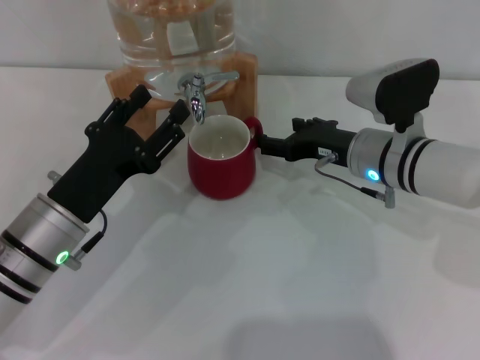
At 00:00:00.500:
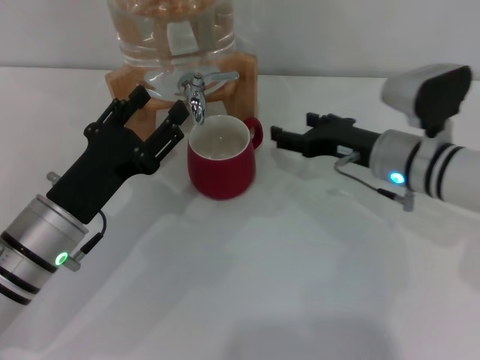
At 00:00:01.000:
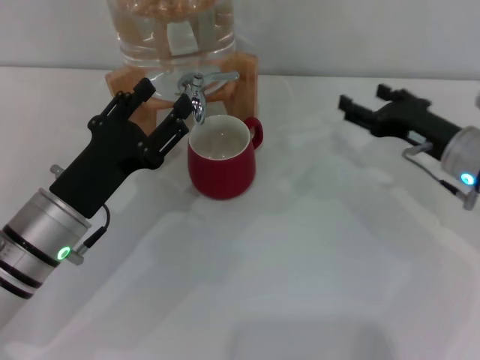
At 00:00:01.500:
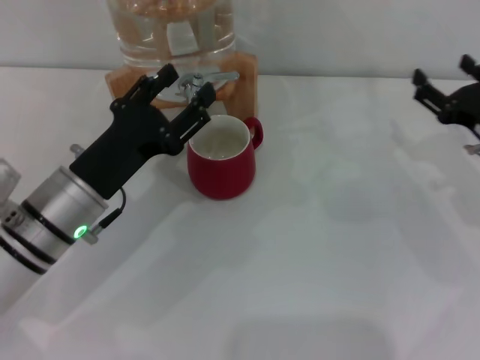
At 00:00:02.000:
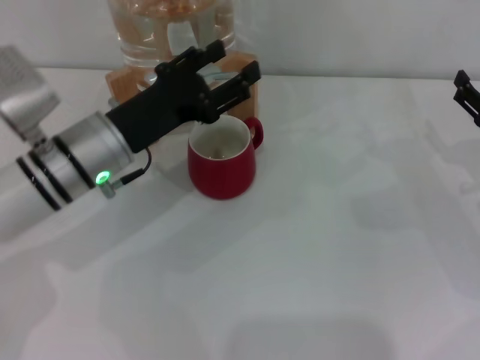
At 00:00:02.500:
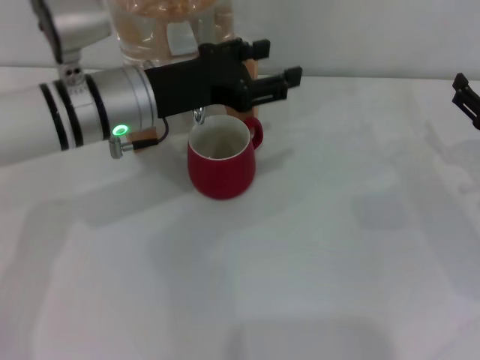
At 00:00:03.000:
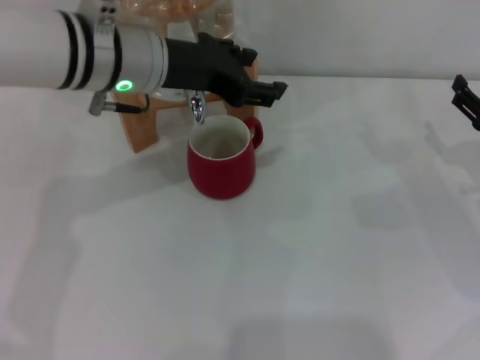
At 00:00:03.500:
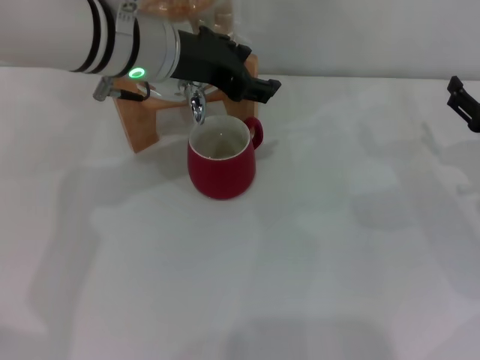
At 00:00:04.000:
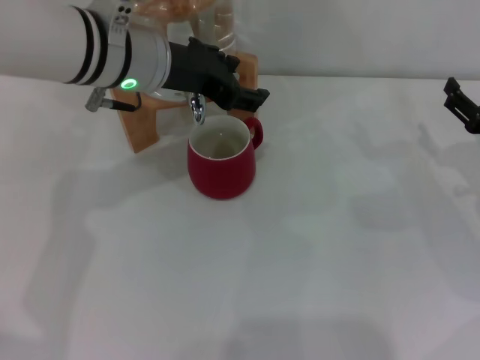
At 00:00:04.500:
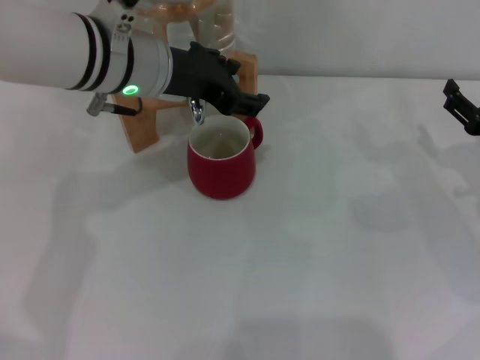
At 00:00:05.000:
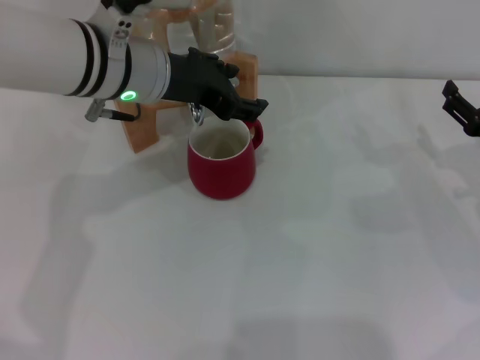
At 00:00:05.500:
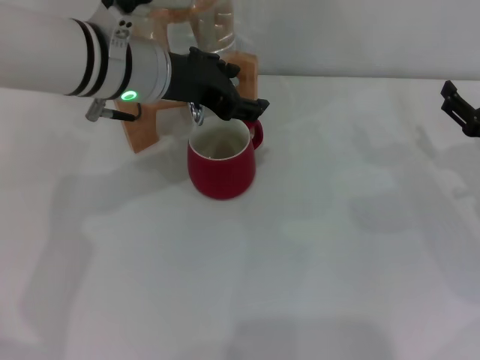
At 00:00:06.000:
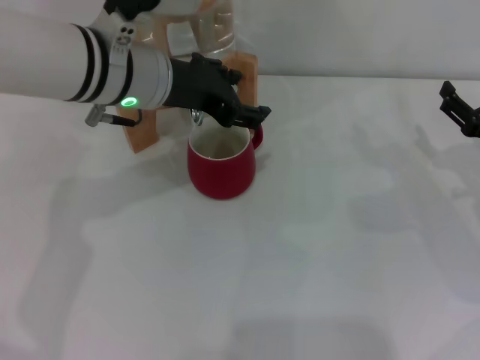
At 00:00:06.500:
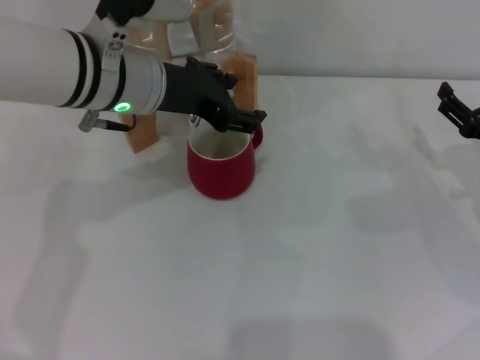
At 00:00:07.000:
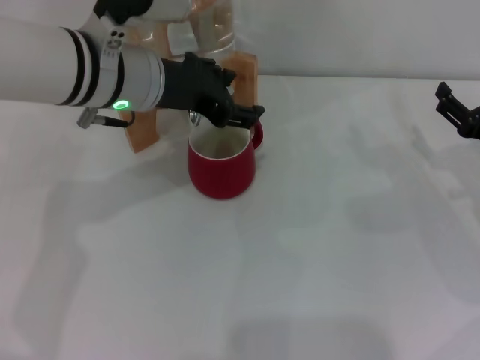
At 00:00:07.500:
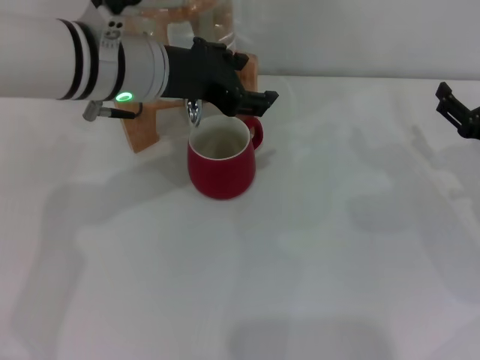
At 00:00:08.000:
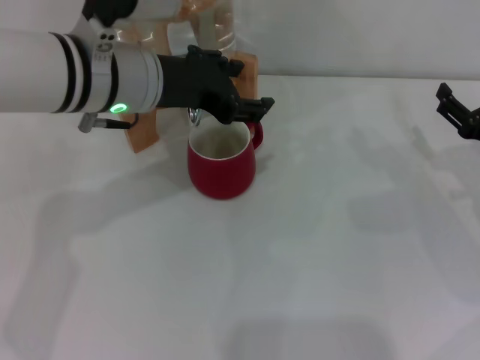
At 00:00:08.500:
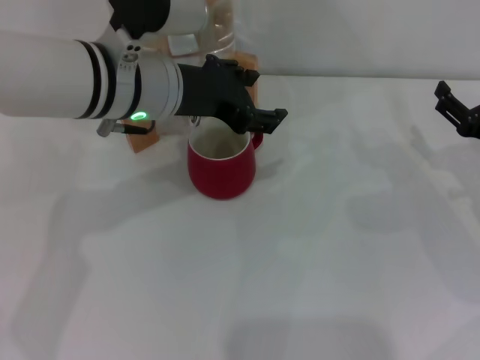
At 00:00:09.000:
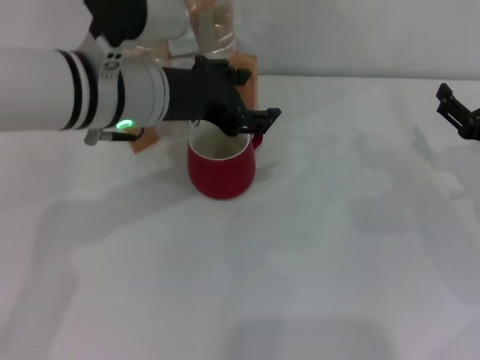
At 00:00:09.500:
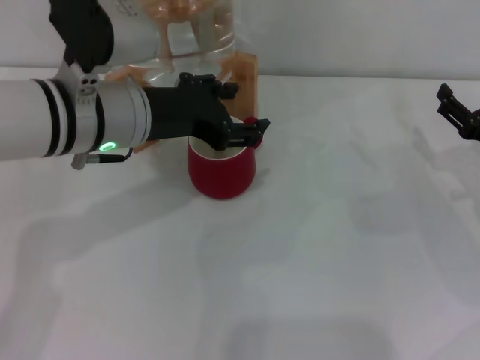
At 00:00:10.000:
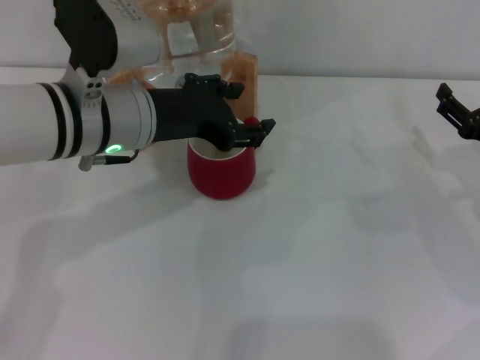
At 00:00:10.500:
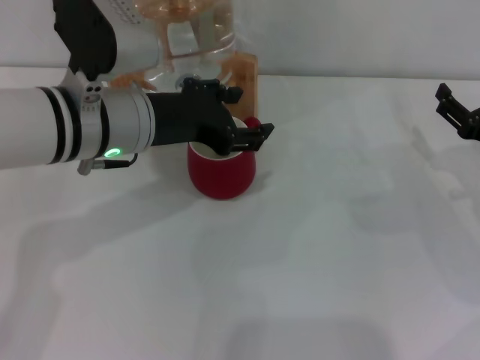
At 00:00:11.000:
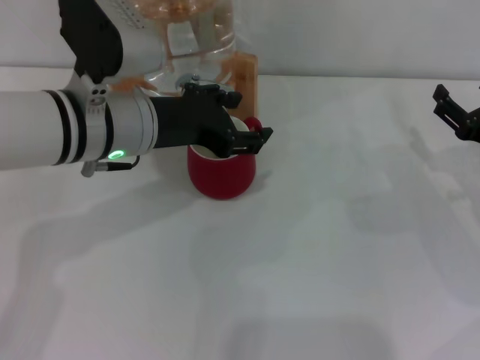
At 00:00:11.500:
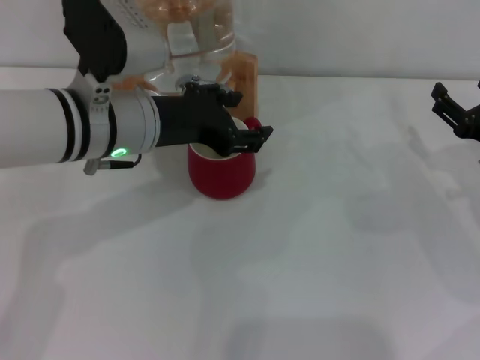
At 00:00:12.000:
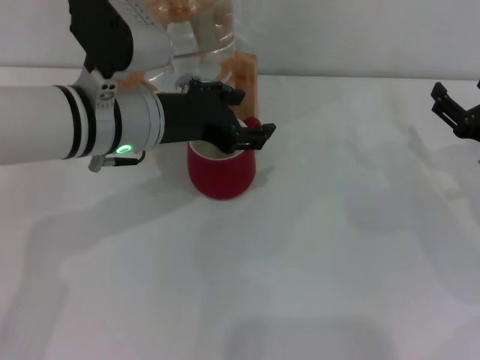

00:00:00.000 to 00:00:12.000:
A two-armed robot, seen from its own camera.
Task of the whole recording: the right gripper pick up the red cup and place it horizontally under the faucet, the left gripper turn on the faucet to fill the cup, and then turn off the faucet.
Step, 00:00:01.000 to 00:00:10.500: Open the dispenser valve and fill the cup with water with the left gripper.
00:00:00.000 to 00:00:02.000: The left gripper heads forward and upward, covering about 10 cm, while the right gripper travels to the right by about 15 cm.
00:00:02.000 to 00:00:04.000: The left gripper goes some 10 cm upward and forward.
00:00:04.000 to 00:00:06.000: Both grippers stay put.
00:00:06.000 to 00:00:12.000: There are only small adjustments of the grippers.

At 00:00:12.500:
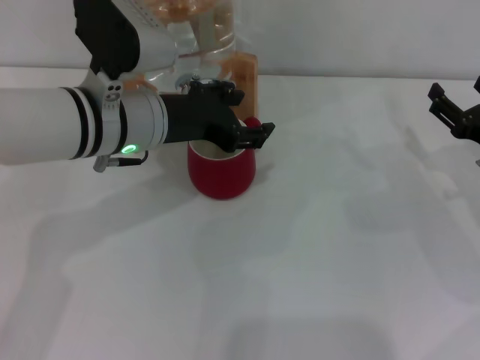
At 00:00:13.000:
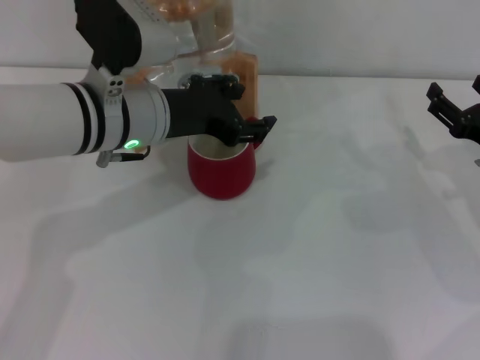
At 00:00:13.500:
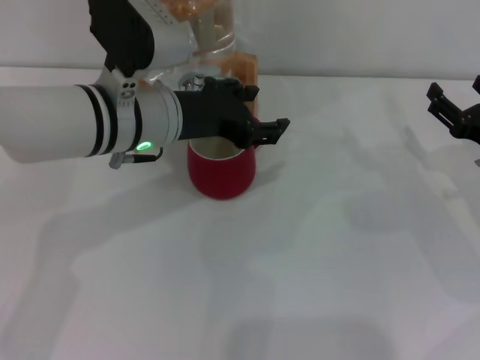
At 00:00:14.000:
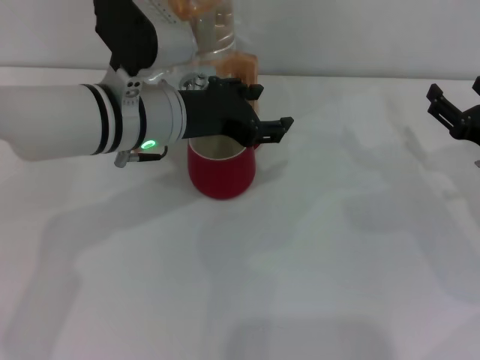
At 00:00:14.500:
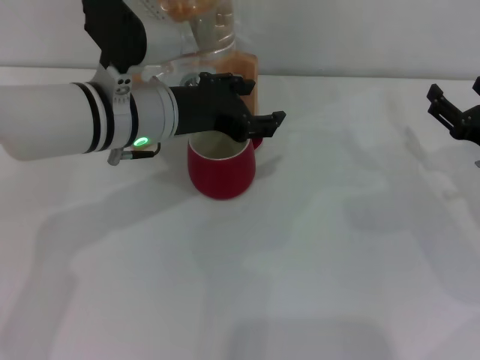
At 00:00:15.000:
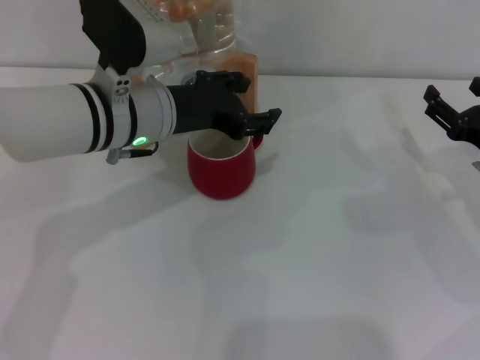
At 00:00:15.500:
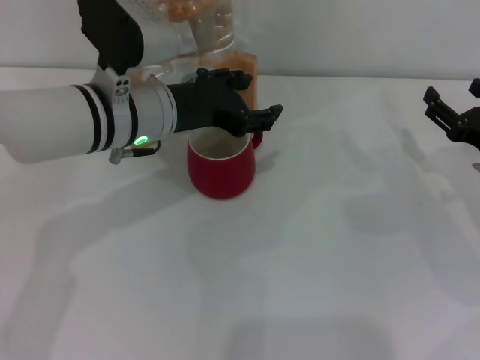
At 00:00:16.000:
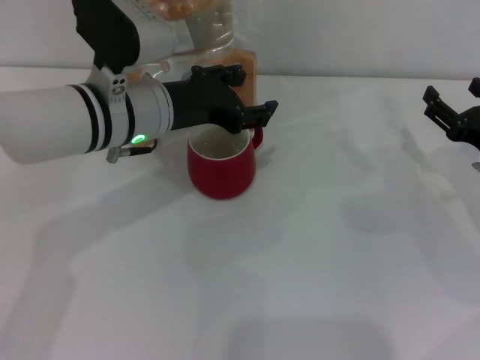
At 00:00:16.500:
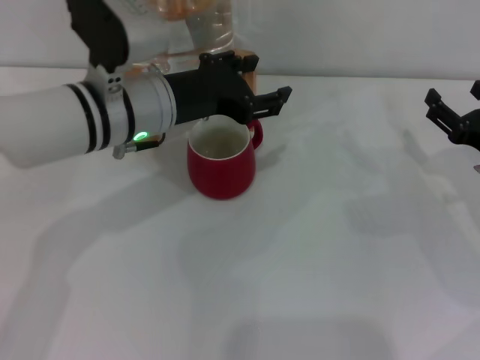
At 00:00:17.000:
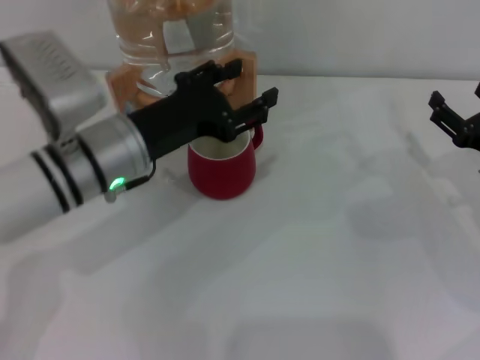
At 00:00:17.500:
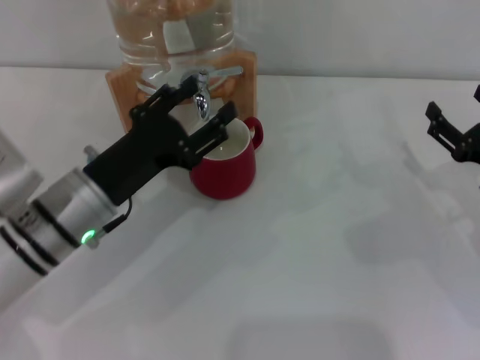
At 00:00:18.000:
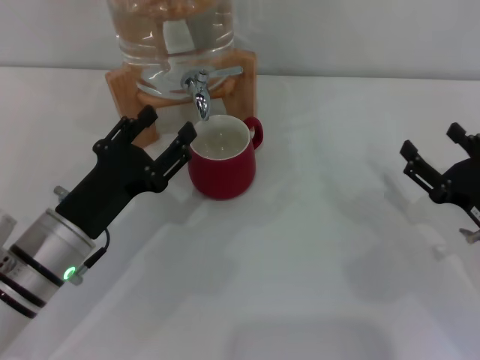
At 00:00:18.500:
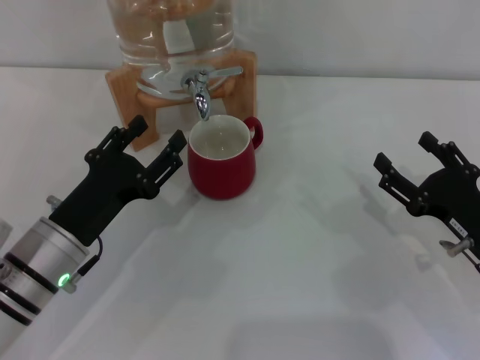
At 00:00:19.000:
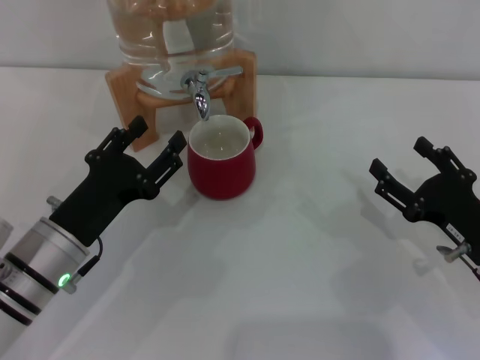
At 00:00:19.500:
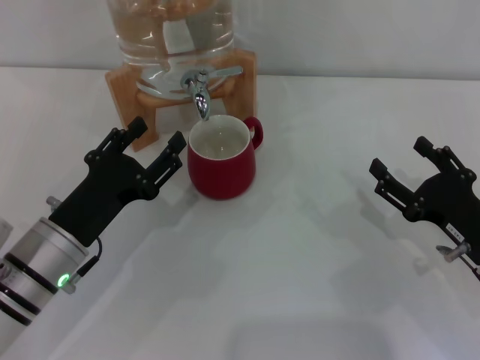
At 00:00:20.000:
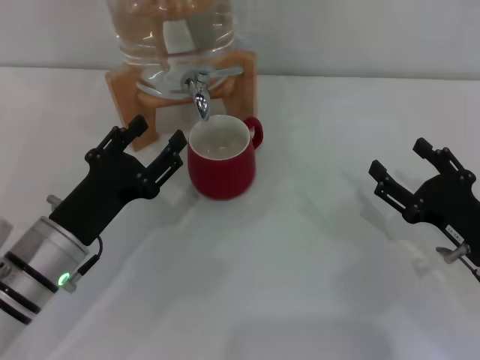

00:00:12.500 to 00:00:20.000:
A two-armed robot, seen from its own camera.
Task of the whole recording: the right gripper pick up the red cup and place it horizontally under the faucet, the left gripper turn on the faucet to fill the cup, and then turn off the faucet.
Step, 00:00:12.500 to 00:00:17.000: Close the dispenser valve with the left gripper.
00:00:12.500 to 00:00:16.500: There are only small adjustments of the grippers.
00:00:16.500 to 00:00:18.000: The right gripper heads backward, covering roughly 5 cm, while the left gripper goes about 15 cm downward, backward and to the left.
00:00:18.000 to 00:00:20.000: The grippers make only small movements.
